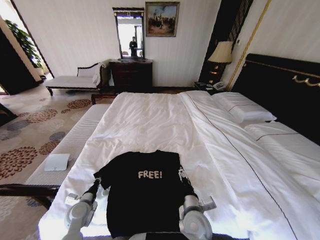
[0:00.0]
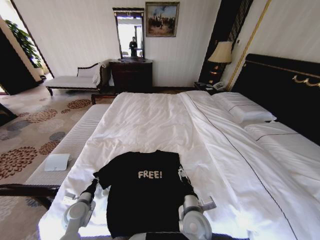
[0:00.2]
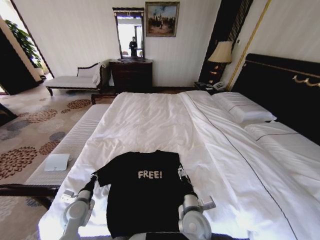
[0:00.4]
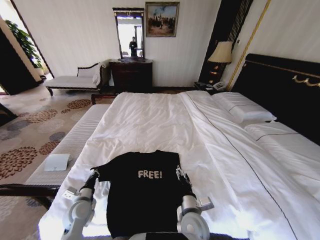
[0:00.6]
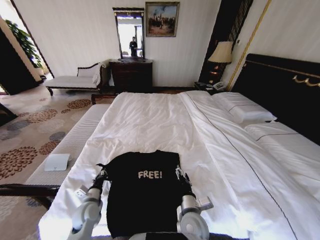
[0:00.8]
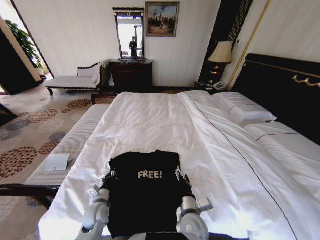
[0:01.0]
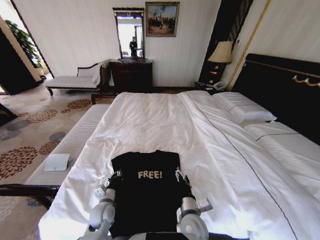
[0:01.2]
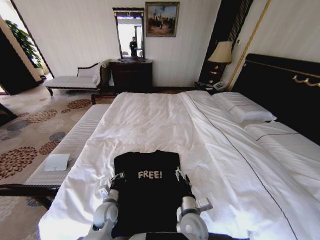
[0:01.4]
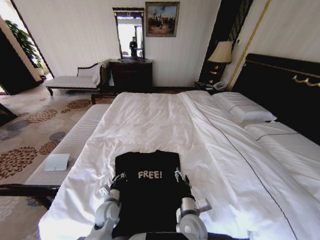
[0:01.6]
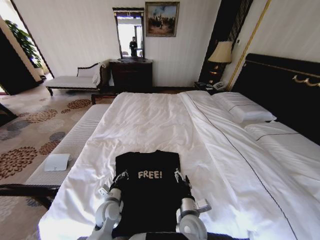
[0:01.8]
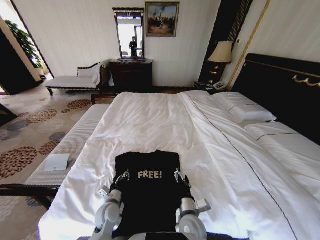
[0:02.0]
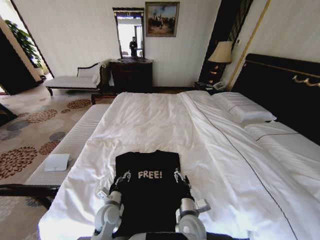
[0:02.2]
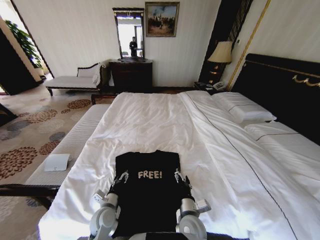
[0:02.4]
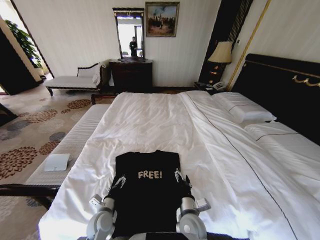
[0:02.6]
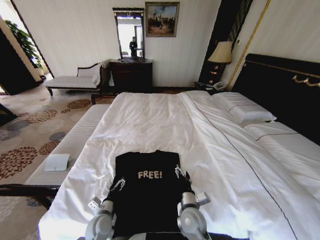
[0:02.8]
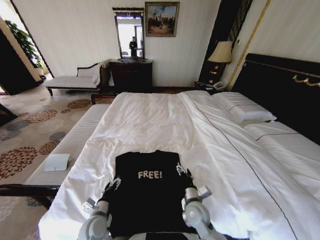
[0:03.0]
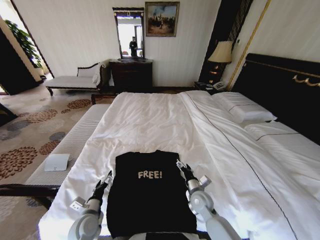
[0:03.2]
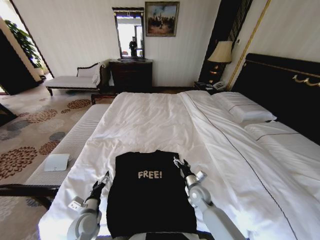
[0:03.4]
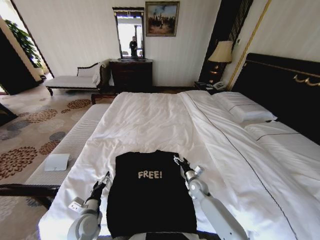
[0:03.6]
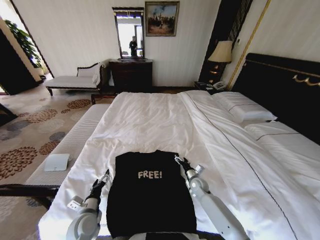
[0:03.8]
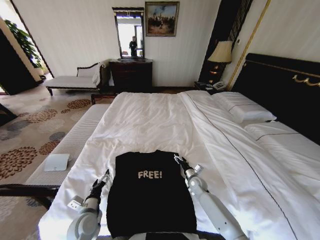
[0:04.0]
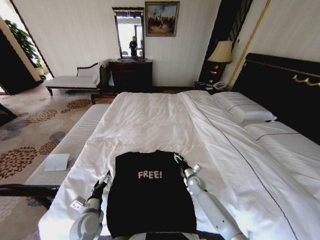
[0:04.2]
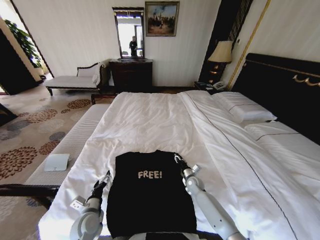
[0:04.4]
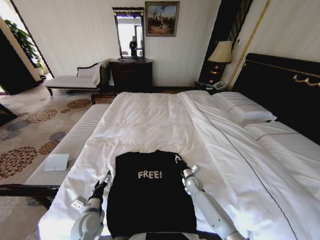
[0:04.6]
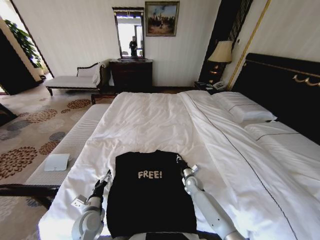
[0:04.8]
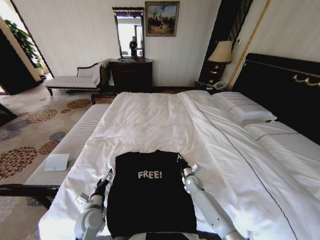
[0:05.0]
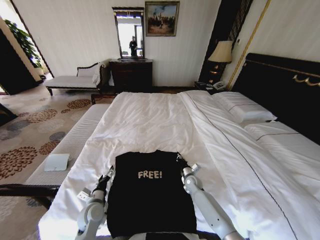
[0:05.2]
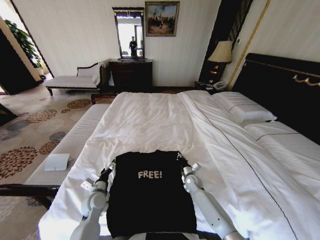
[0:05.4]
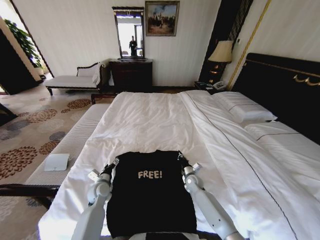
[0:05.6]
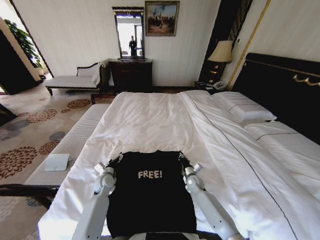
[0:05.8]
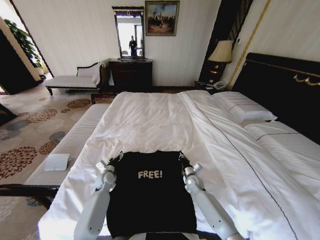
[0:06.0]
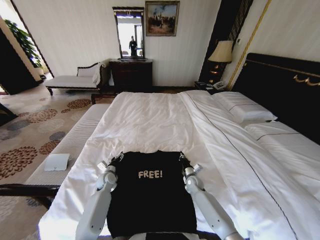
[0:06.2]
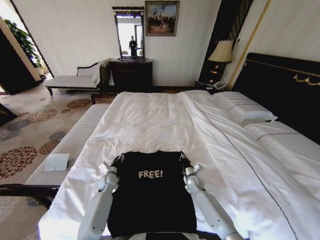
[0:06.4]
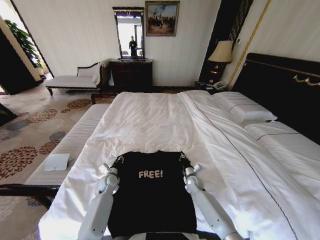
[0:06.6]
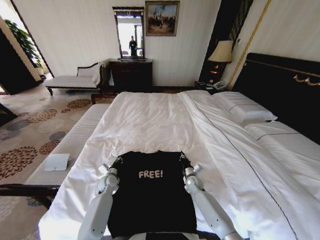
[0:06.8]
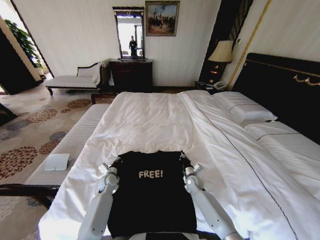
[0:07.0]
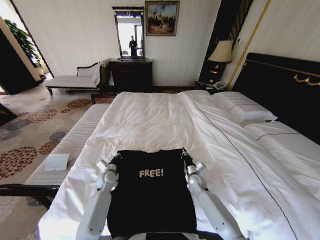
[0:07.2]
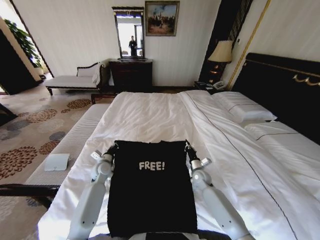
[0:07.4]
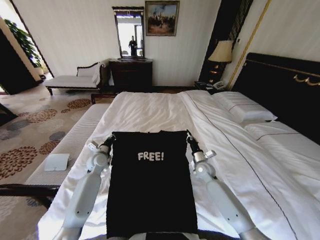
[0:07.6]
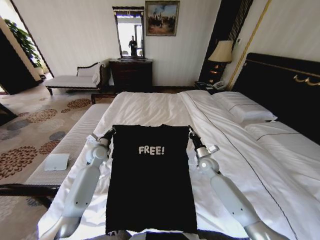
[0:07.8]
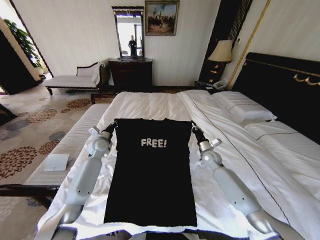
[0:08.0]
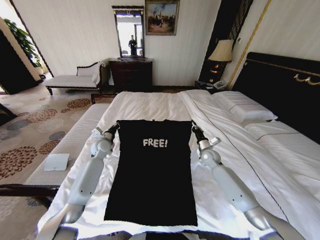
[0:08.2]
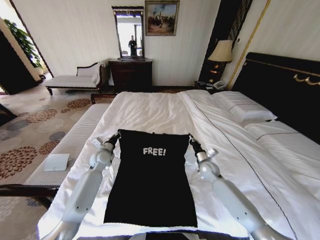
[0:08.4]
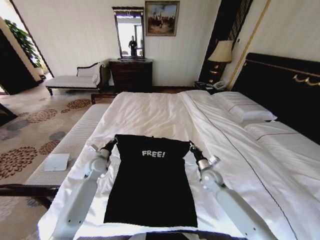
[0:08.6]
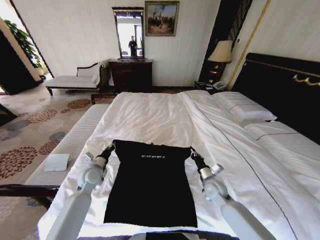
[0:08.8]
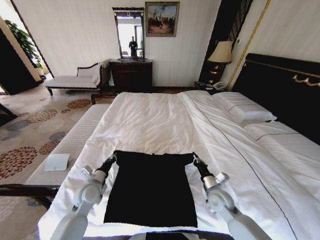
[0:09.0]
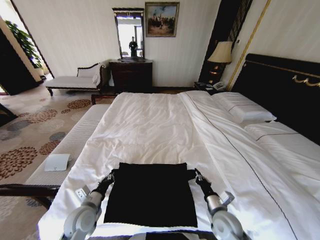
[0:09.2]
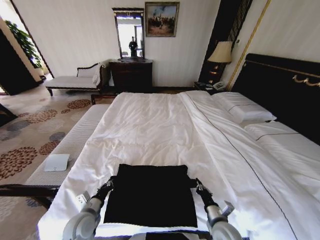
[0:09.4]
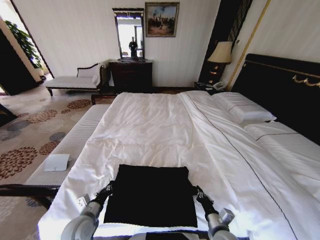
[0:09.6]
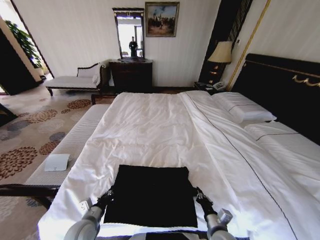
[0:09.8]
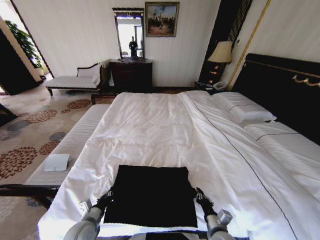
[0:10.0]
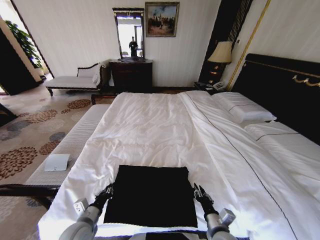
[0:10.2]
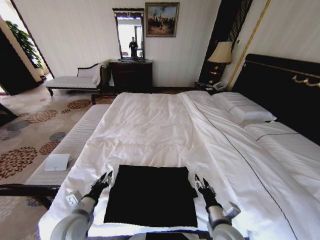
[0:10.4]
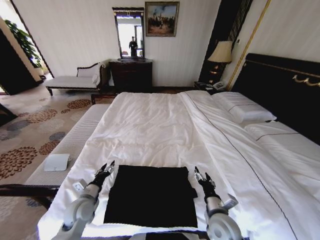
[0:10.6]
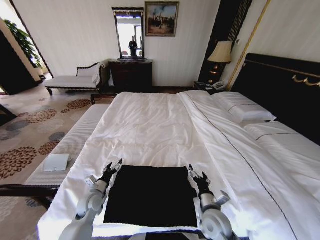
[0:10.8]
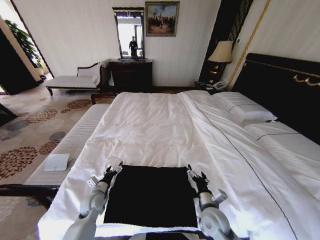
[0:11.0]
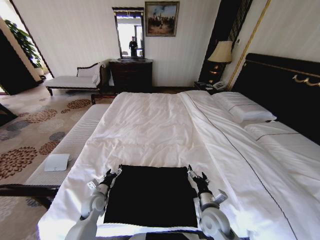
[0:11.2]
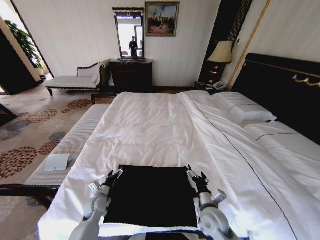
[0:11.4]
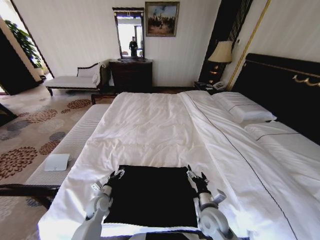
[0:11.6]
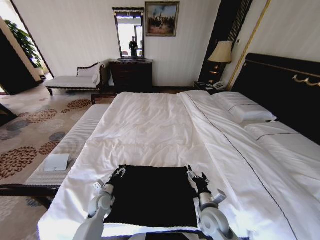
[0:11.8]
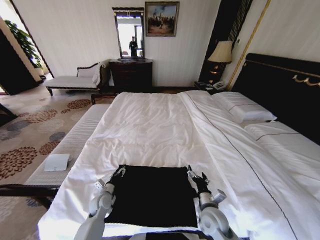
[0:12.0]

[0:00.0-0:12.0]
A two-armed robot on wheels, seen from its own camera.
Task of the whole recording: Fold the clothes on the bed.
0.0 to 1.6 s: The left gripper heads to the right, covering some 10 cm.
1.6 to 3.0 s: The right gripper changes place by approximately 5 cm. The left gripper goes about 5 cm backward, and opens its fingers.
3.0 to 4.4 s: The right gripper heads forward, downward and to the right, covering some 20 cm, and closes.
4.4 to 6.0 s: The right gripper closes its fingers; the left gripper moves forward, some 20 cm.
6.0 to 7.6 s: The grippers both shift upward by roughly 10 cm. The left gripper closes.
7.6 to 9.0 s: The grippers both shift backward by roughly 15 cm.
9.0 to 10.4 s: Both grippers move backward, about 10 cm. The right gripper opens up. Meanwhile the left gripper opens its fingers.
10.4 to 12.0 s: The right gripper is displaced forward by approximately 5 cm, and opens up, while the left gripper goes some 15 cm downward and forward, and opens, then closes again.

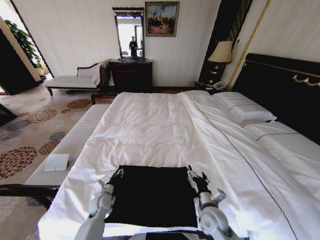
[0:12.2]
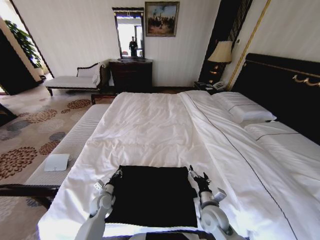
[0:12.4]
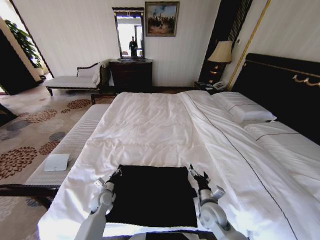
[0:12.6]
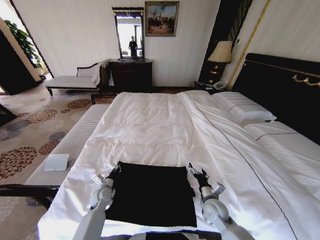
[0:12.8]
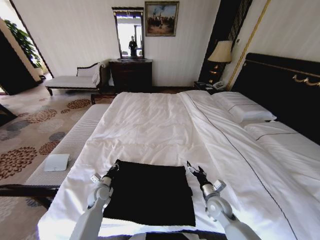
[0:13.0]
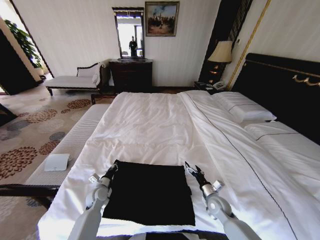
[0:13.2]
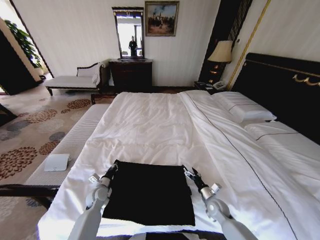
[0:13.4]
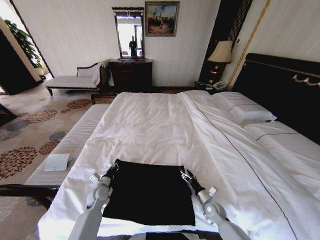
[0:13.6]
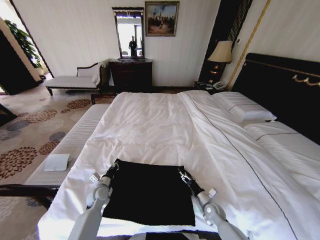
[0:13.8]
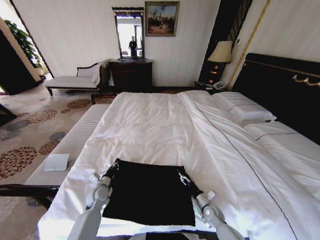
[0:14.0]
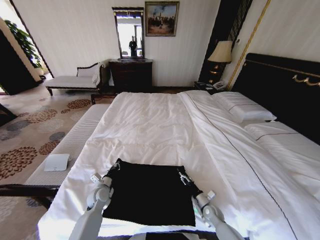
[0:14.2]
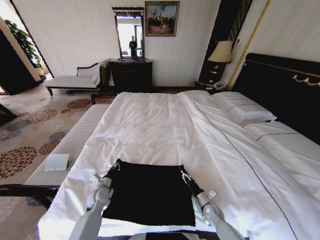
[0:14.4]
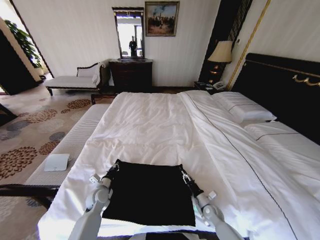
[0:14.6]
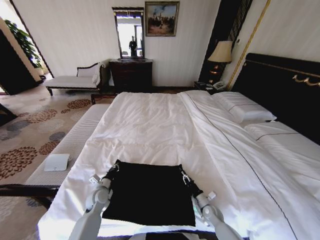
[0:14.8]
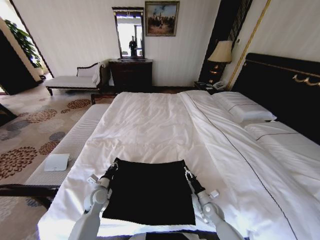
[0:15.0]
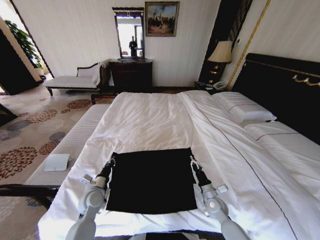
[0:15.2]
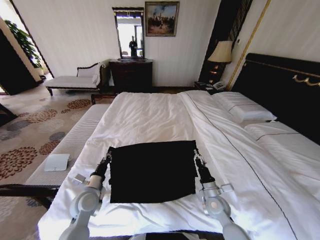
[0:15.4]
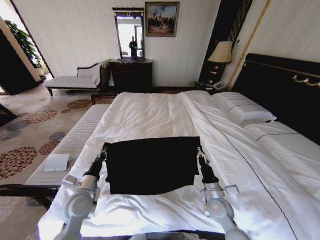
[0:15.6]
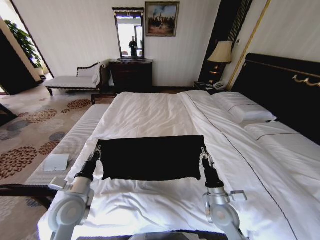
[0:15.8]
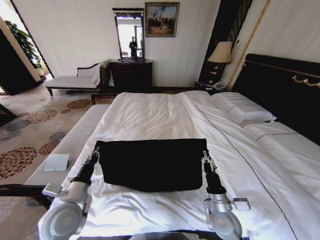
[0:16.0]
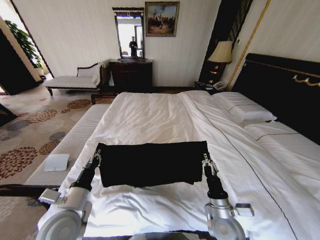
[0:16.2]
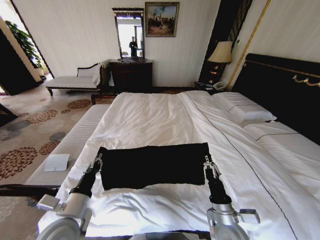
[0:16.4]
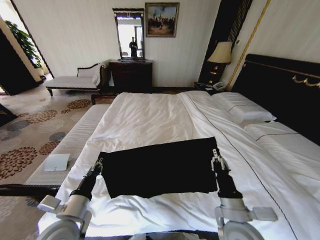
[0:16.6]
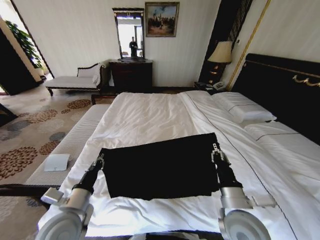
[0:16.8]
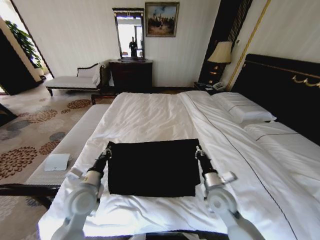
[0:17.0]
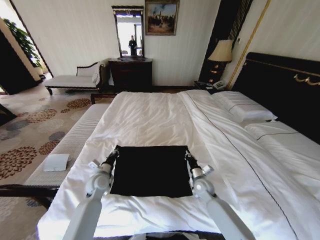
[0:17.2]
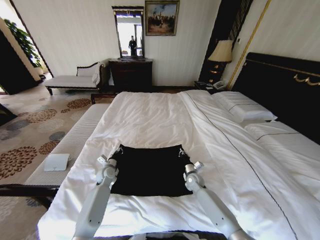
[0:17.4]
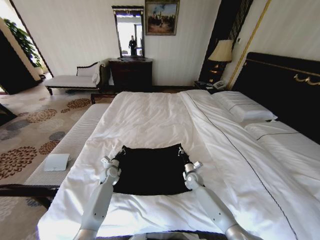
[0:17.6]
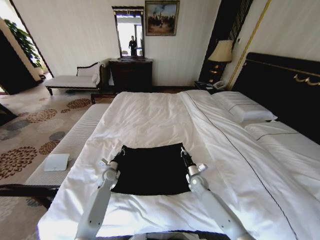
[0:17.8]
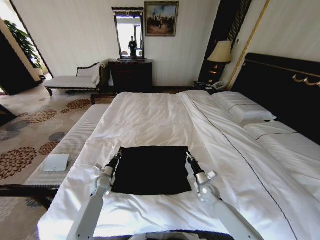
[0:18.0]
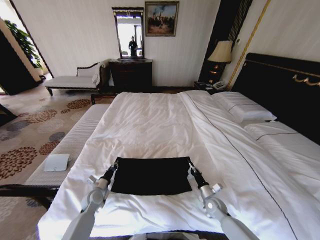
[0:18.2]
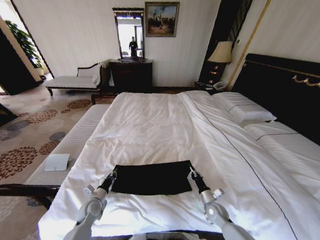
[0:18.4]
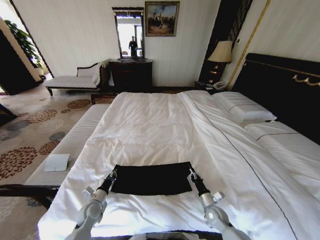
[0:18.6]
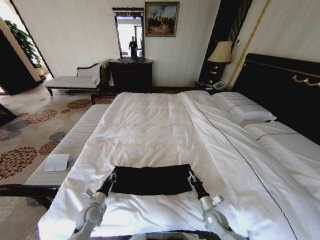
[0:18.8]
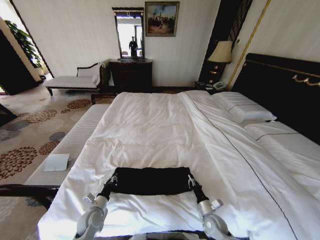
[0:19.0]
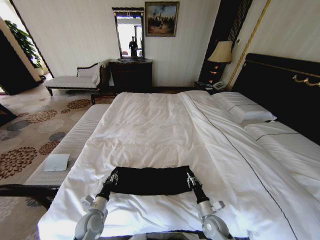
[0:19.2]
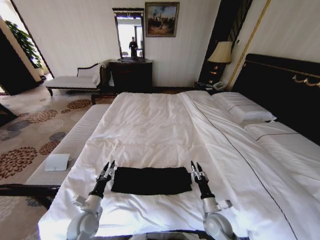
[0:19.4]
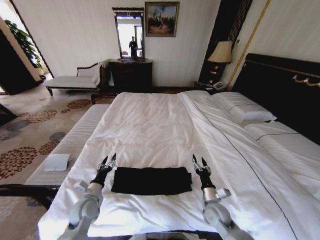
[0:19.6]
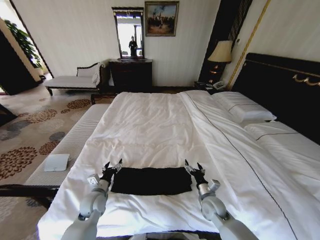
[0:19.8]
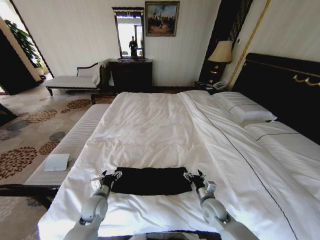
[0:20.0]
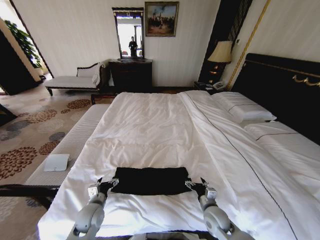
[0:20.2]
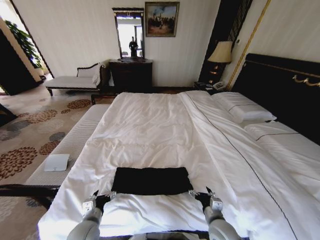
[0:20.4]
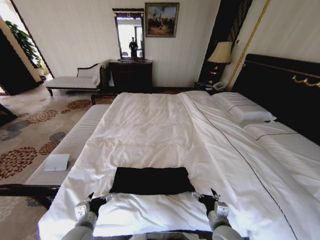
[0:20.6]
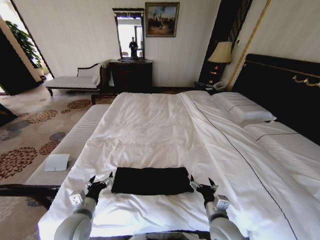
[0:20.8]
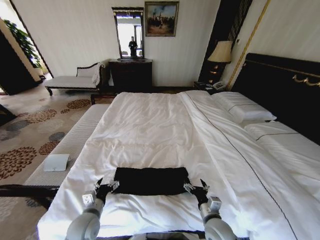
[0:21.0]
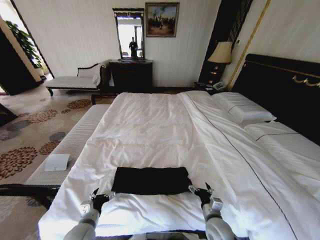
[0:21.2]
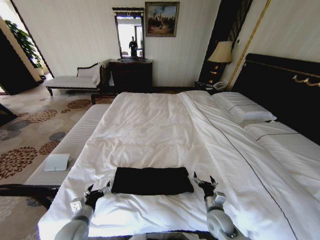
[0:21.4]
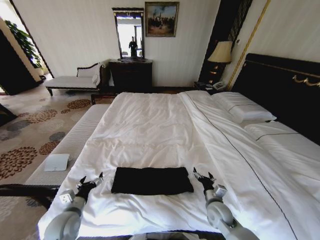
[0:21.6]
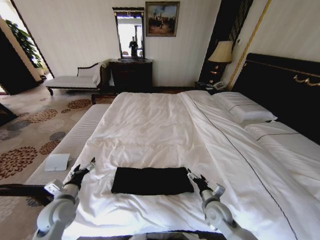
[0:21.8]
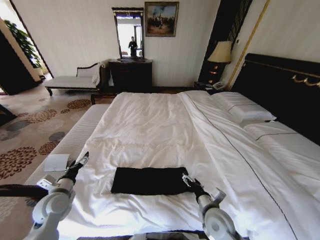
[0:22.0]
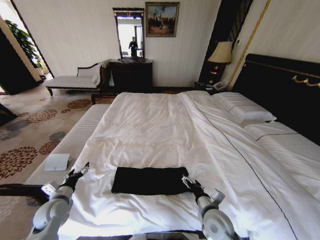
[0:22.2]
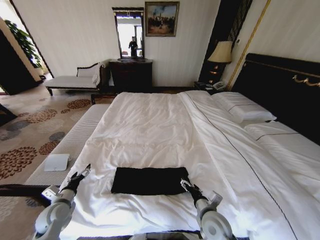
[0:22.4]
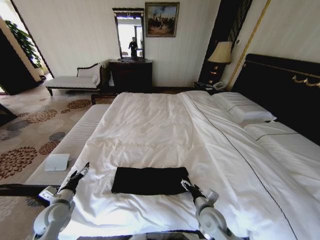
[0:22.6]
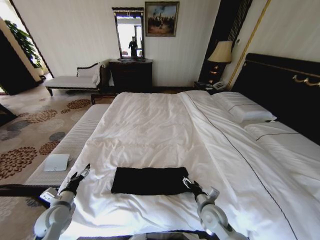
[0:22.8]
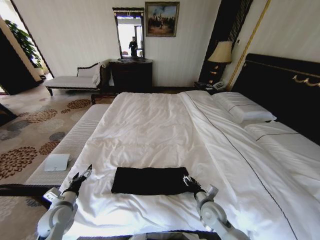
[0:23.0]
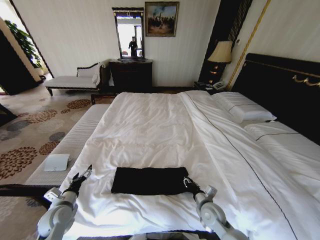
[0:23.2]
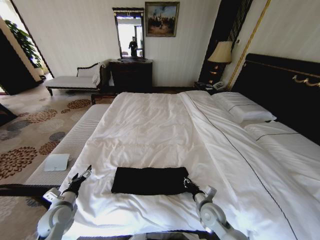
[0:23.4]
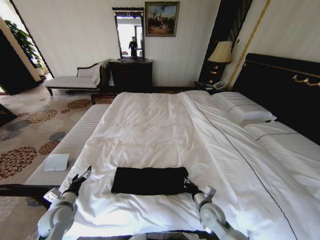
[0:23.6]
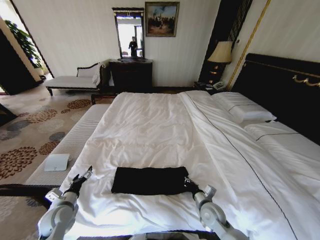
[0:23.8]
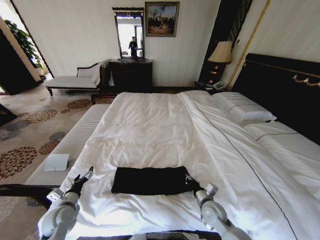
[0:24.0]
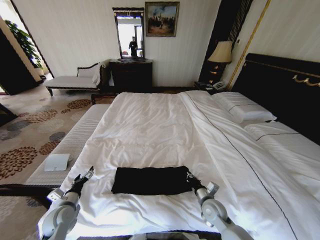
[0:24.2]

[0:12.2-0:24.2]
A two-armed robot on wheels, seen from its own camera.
Task of the whole recording: Fold the clothes on the bed.
12.2 to 13.8 s: The right gripper moves downward and to the right, approximately 15 cm. The left gripper closes up.
13.8 to 15.2 s: Both grippers travel together upward, approximately 5 cm. The right gripper closes its fingers.
15.2 to 16.6 s: Both grippers move upward and backward, some 20 cm.
16.6 to 18.2 s: Both grippers move downward and forward, roughly 25 cm.
18.2 to 19.8 s: The right gripper goes roughly 10 cm upward and to the left, and opens its fingers; the left gripper heads upward, covering roughly 5 cm, and opens up.
19.8 to 21.2 s: Both grippers travel together backward, some 10 cm.
21.2 to 22.6 s: The left gripper moves to the left and forward, some 15 cm. Meanwhile the right gripper reaches roughly 5 cm upward, then returns.
22.6 to 24.2 s: The right gripper closes.
